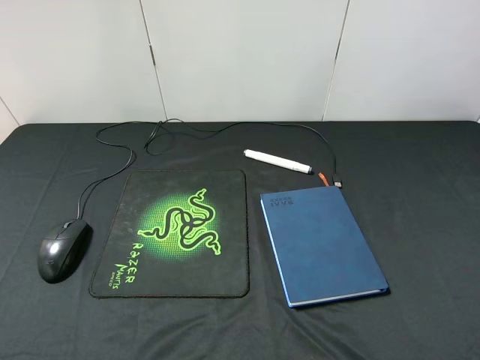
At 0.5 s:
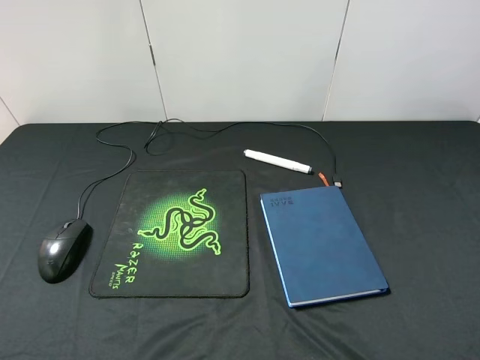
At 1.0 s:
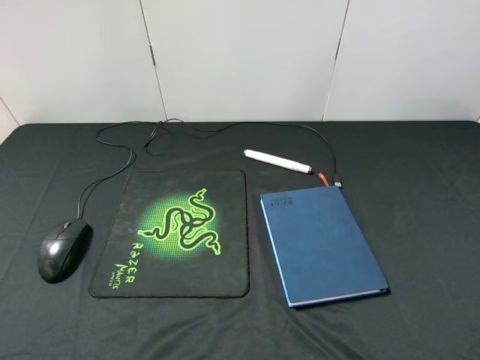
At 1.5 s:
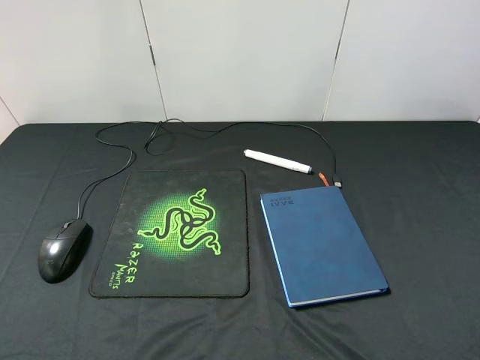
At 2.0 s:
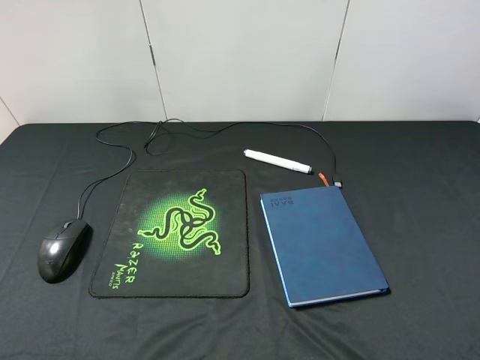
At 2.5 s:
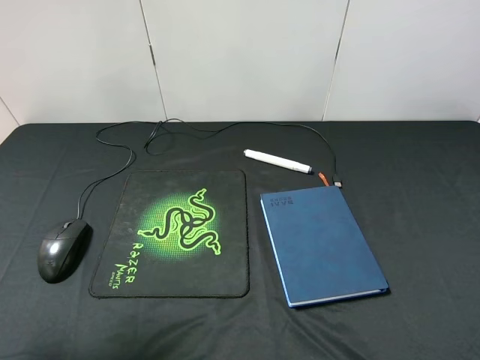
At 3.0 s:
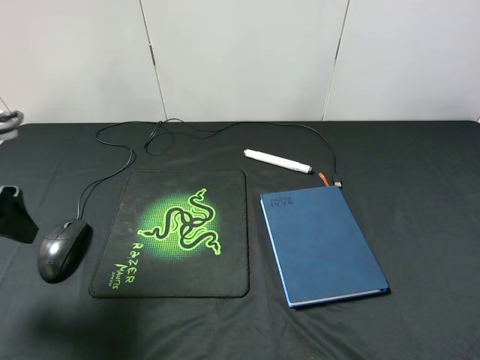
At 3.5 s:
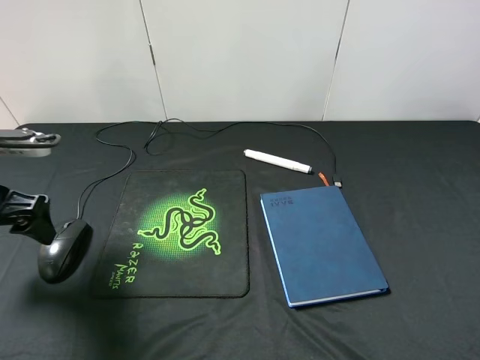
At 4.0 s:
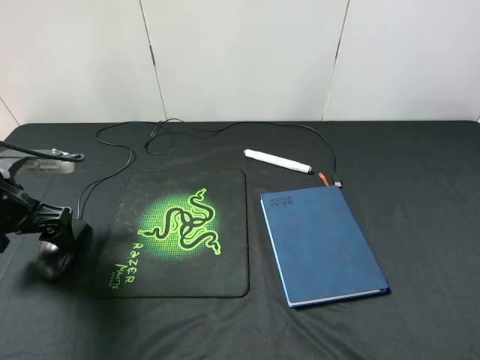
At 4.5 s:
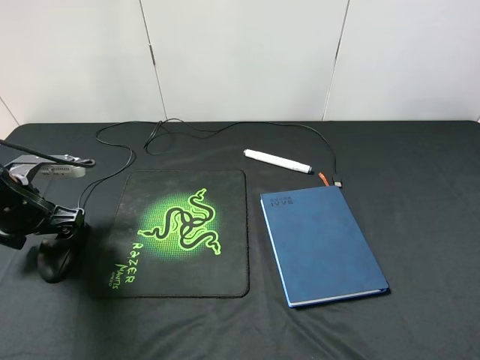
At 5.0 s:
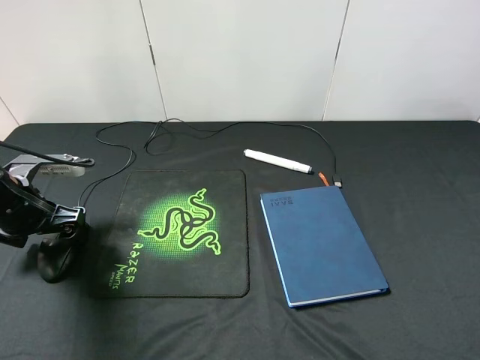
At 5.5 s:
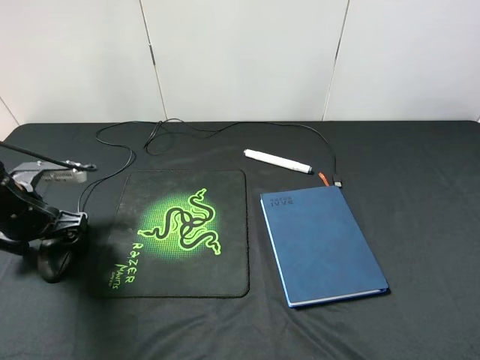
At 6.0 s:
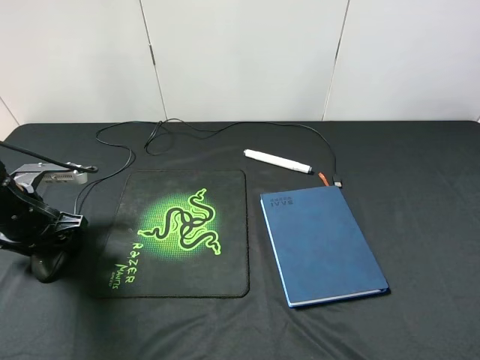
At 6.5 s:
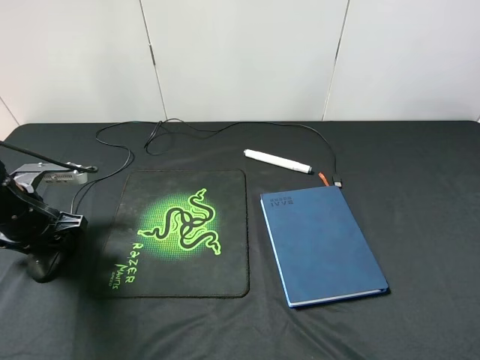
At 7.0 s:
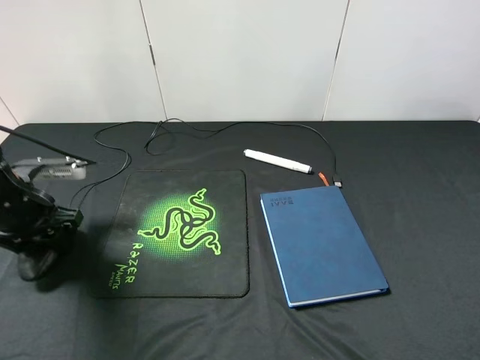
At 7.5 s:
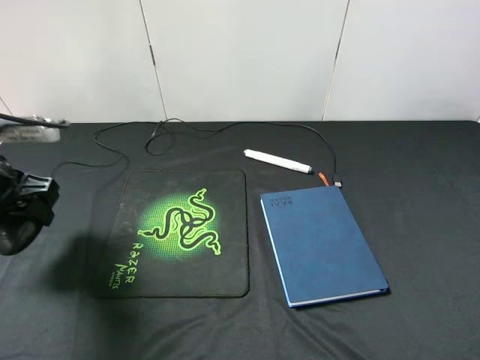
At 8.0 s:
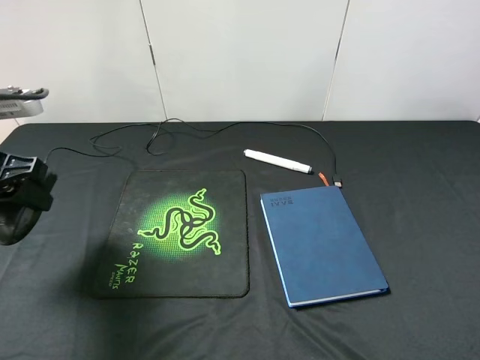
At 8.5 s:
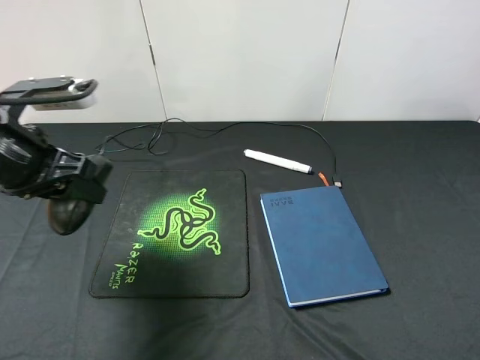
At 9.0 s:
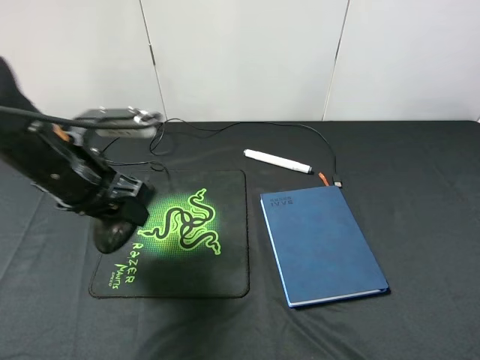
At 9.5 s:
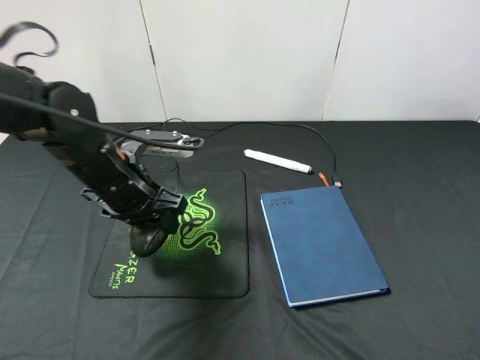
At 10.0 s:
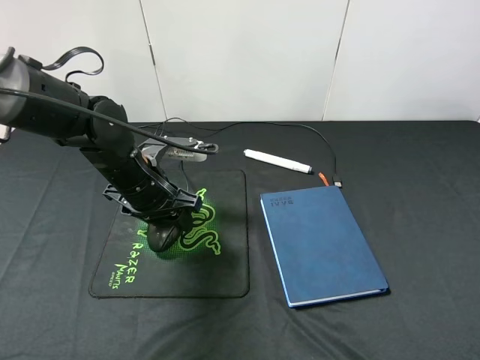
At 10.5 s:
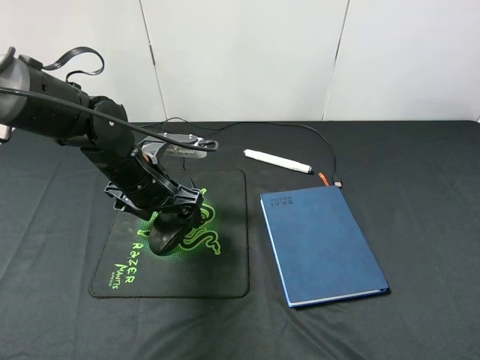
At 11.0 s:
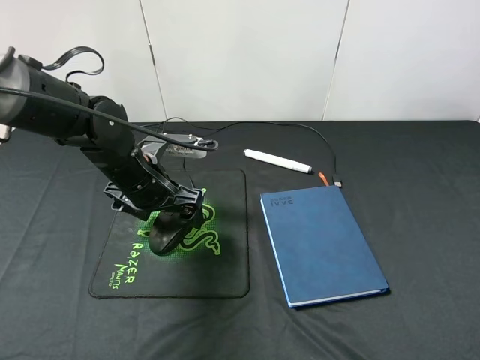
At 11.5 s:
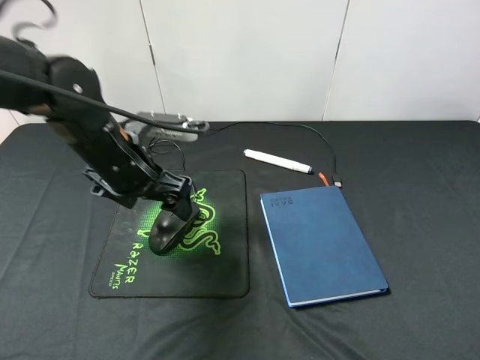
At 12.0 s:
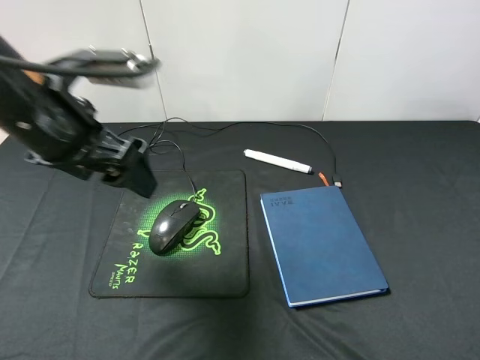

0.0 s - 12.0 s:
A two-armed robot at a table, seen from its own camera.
Step, 0.0 s - 7.0 s: Pick up the mouse with left gripper.
Step, 7.5 s - 11.0 s: Place the mouse on the mouse pad with left gripper.
2.0 s - 4.0 s: The left gripper shifts about 25 cm forward and downward.
4.0 s - 6.0 s: The left gripper closes.
6.0 s - 8.0 s: The left gripper moves upward, some 15 cm.
8.0 s - 10.0 s: The left gripper is displaced to the right, downward and forward by roughly 20 cm.
10.0 s - 12.0 s: The left gripper moves upward and backward, roughly 15 cm, and opens its fingers.

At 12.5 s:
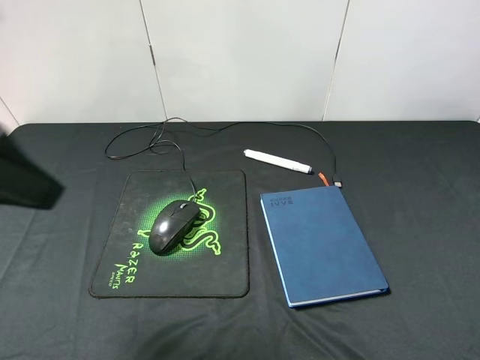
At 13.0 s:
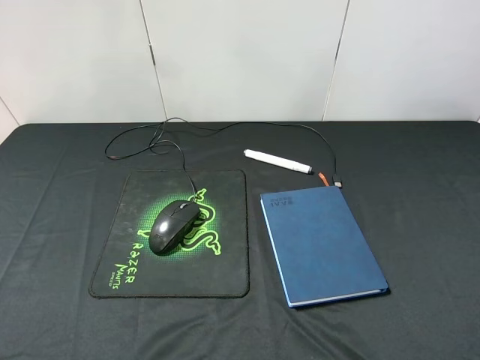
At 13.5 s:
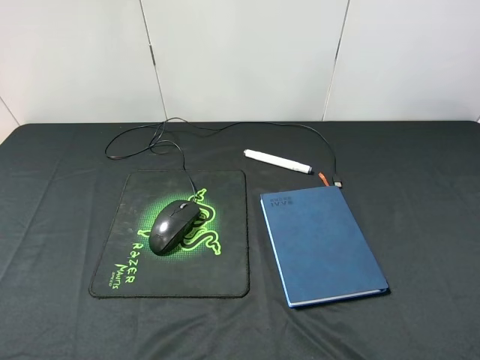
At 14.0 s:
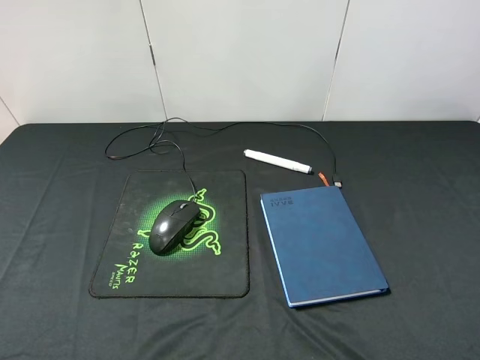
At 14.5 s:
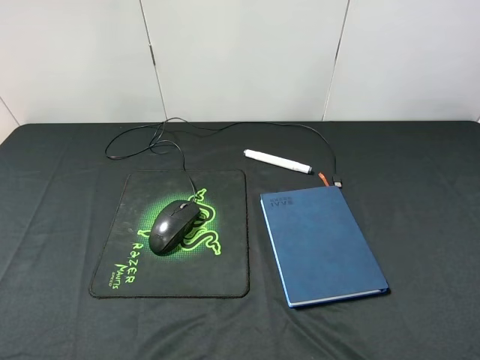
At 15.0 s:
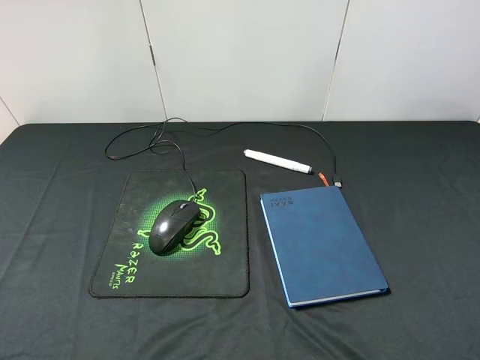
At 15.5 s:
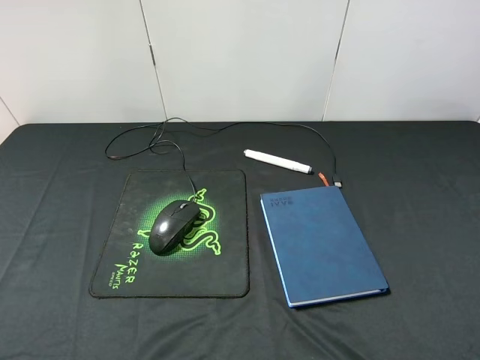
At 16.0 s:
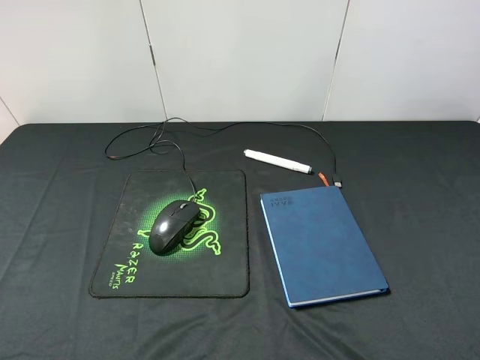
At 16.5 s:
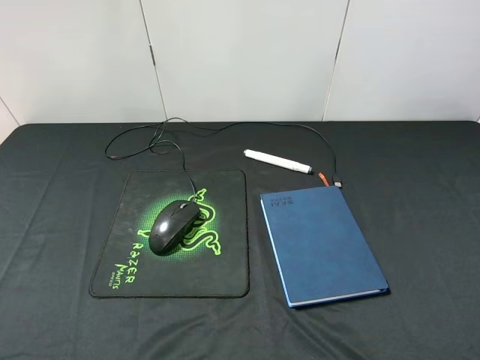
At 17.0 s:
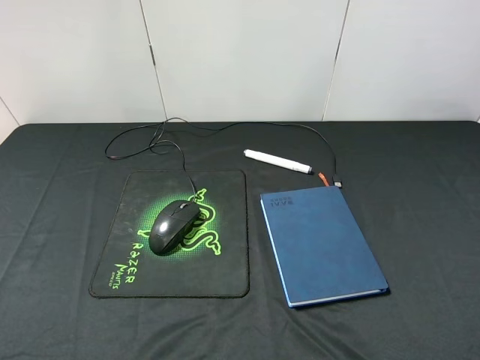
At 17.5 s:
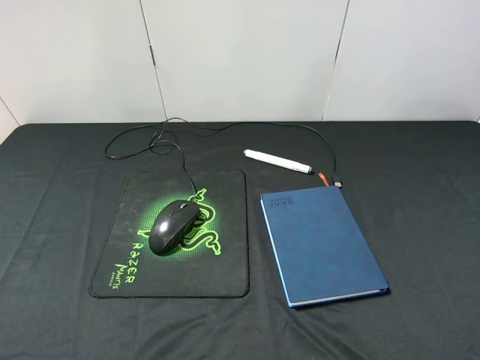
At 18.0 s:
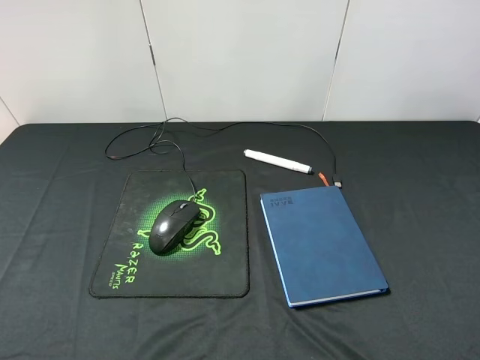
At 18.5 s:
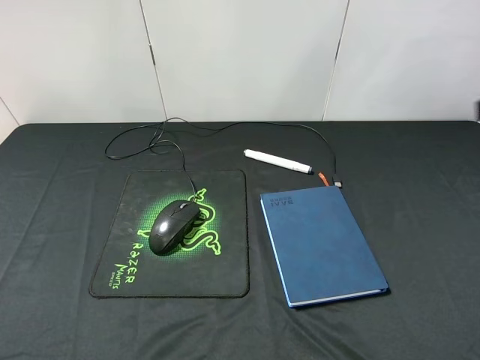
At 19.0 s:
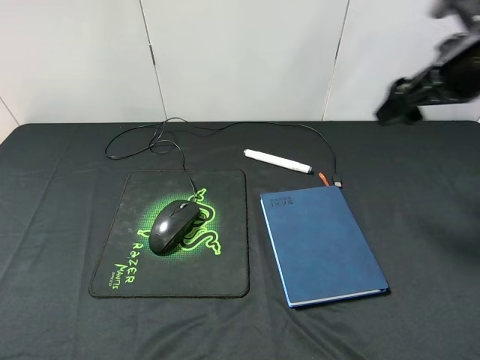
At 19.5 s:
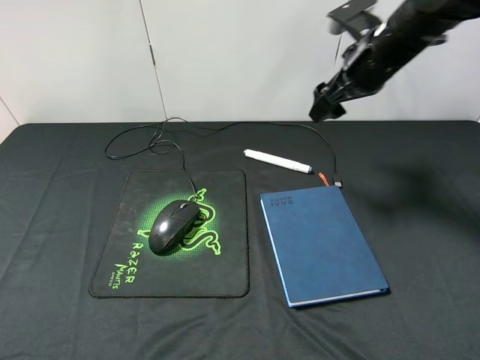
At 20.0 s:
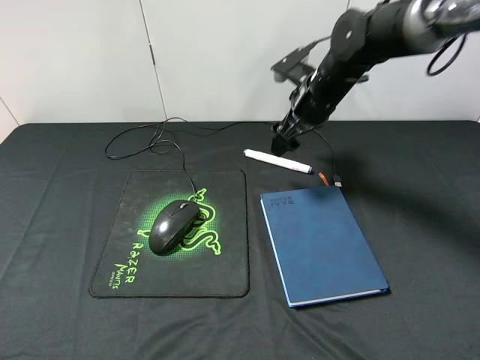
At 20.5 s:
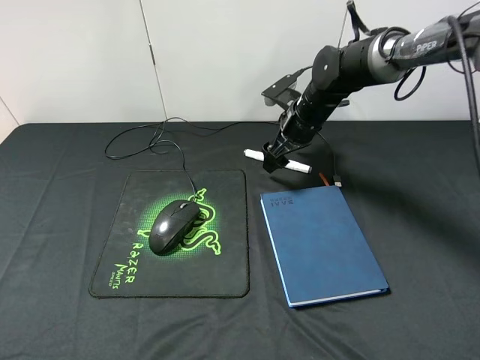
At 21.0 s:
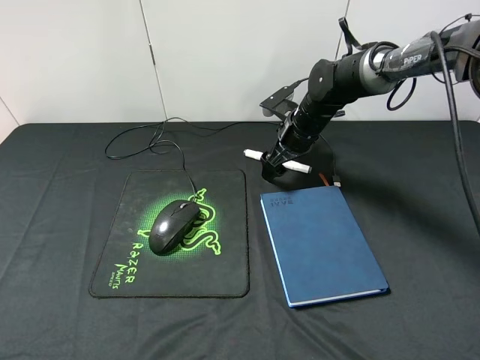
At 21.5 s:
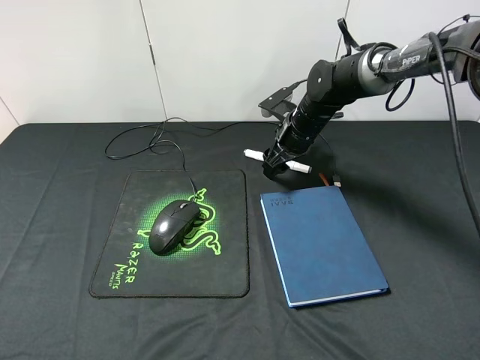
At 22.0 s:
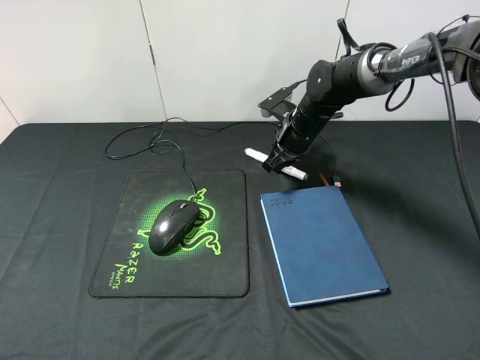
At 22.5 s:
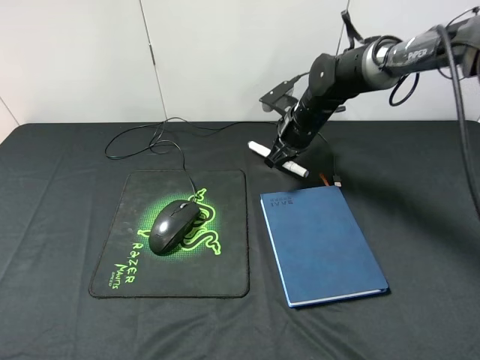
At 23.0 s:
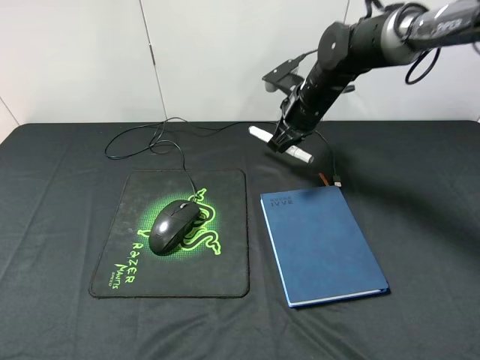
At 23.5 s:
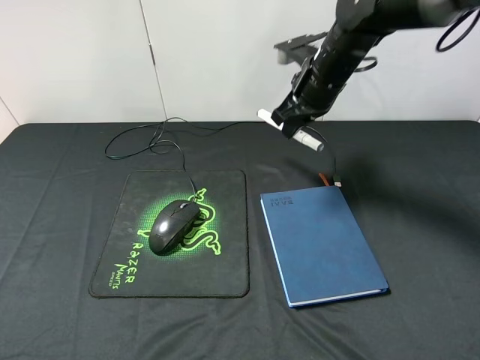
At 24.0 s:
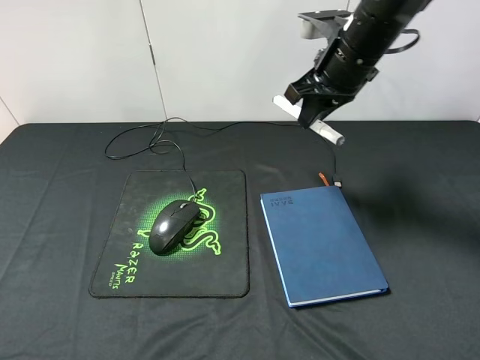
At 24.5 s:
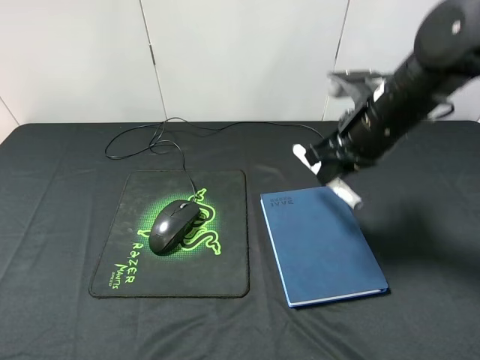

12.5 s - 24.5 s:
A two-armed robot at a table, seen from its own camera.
Step, 12.5 s - 22.5 s: Pick up the marker pen with right gripper.
12.5 s - 14.5 s: The left gripper moves backward and to the left, about 15 cm.
18.5 s - 20.5 s: The right gripper heads forward, downward and to the left, covering about 35 cm.
20.5 s - 22.5 s: The right gripper closes up.
22.5 s - 24.5 s: The right gripper shifts approximately 20 cm backward and upward.

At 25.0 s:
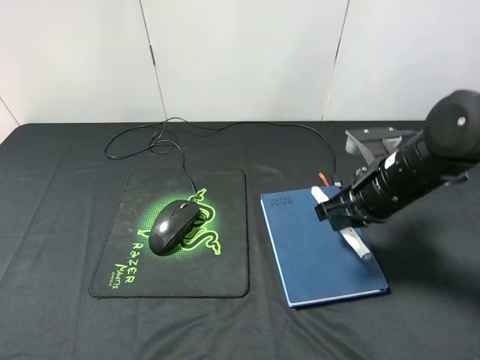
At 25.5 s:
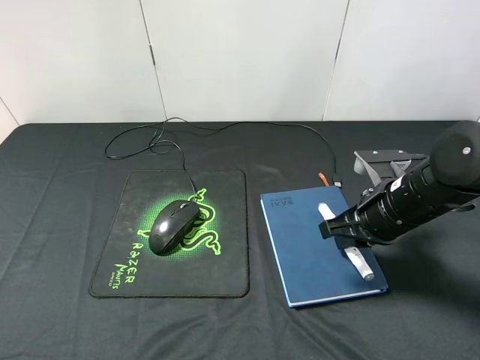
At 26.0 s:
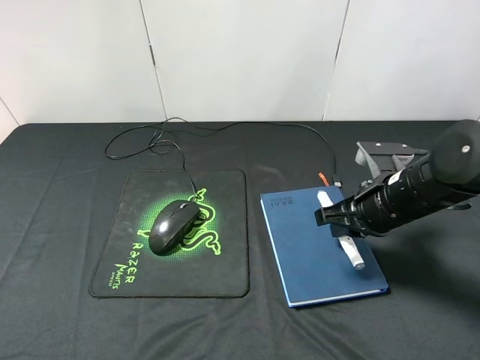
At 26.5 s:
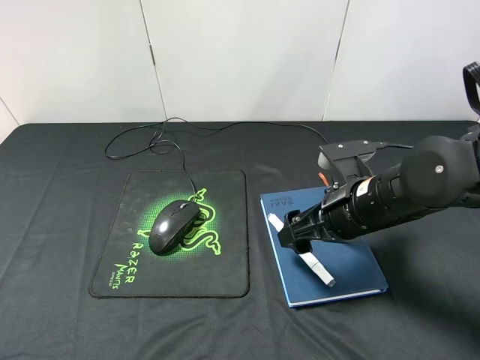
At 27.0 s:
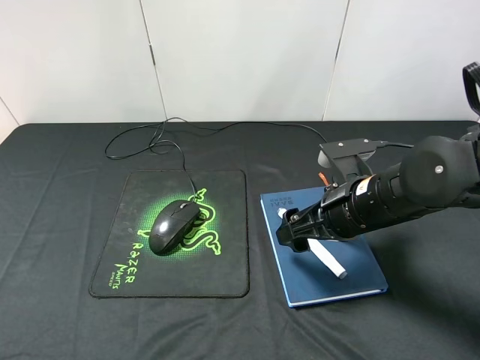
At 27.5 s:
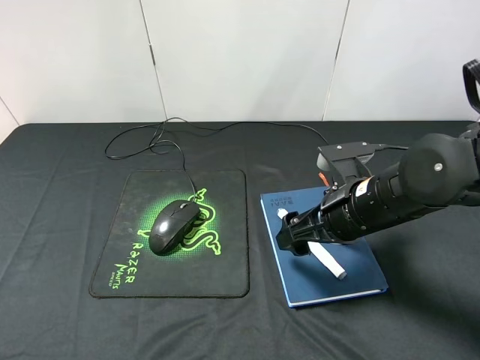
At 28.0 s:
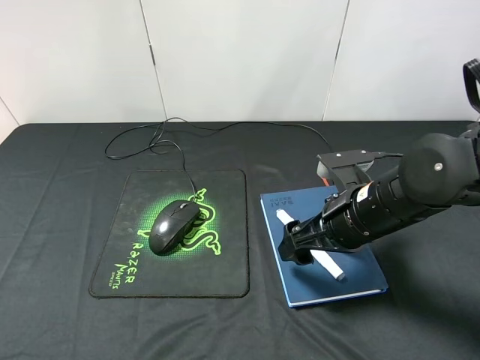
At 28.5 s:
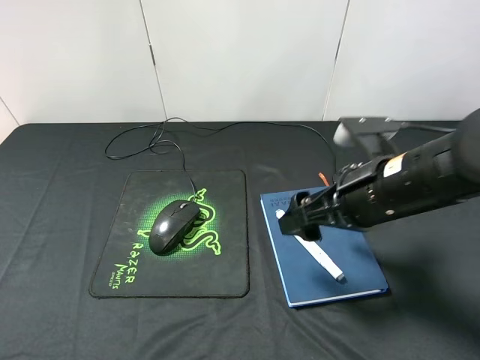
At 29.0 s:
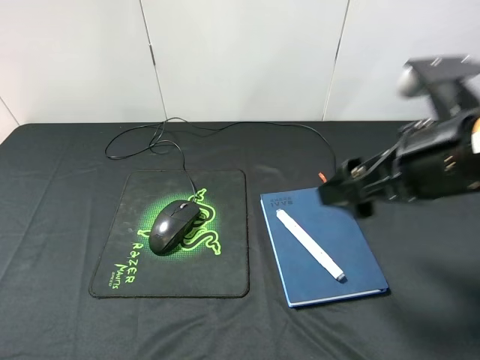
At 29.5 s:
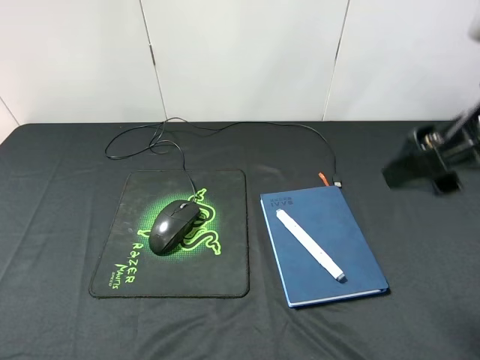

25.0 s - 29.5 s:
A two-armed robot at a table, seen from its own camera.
Step, 25.0 s - 28.0 s: Place the marker pen on the notebook with right gripper.
25.0 s - 27.0 s: The right gripper opens.
27.0 s - 29.5 s: The right gripper travels upward and backward by roughly 20 cm.
